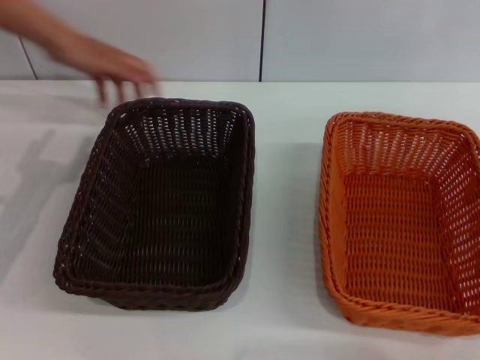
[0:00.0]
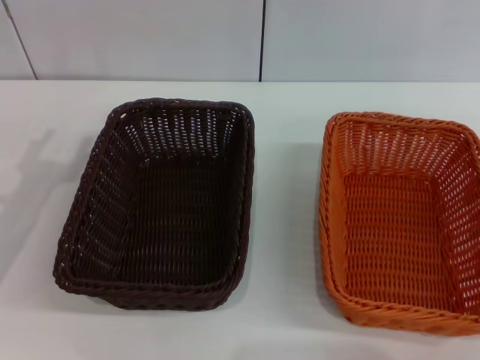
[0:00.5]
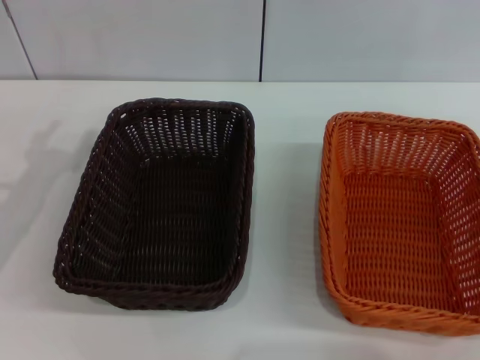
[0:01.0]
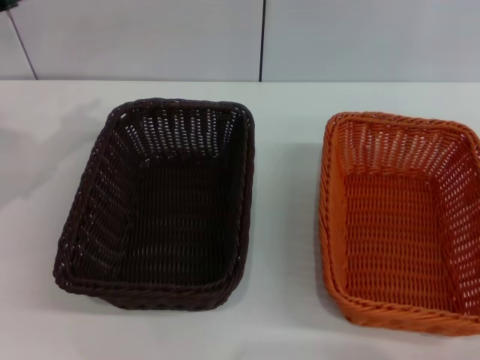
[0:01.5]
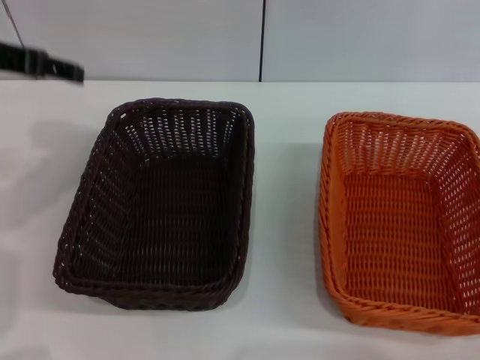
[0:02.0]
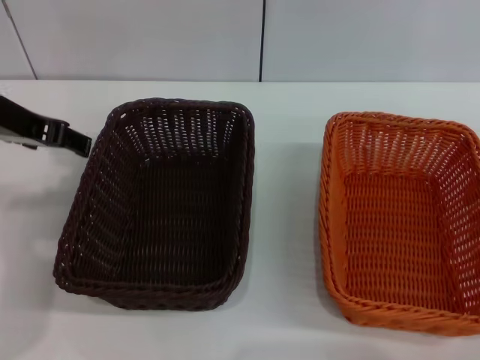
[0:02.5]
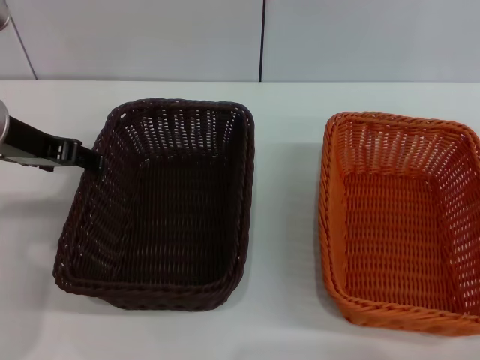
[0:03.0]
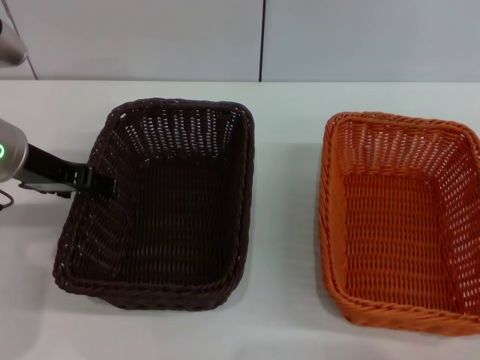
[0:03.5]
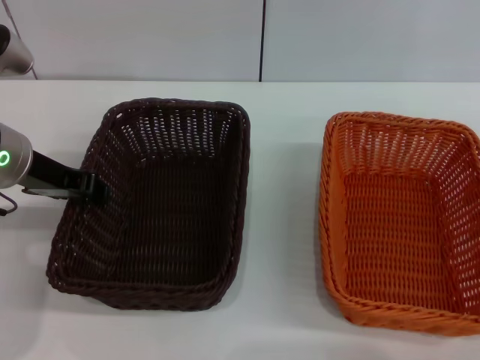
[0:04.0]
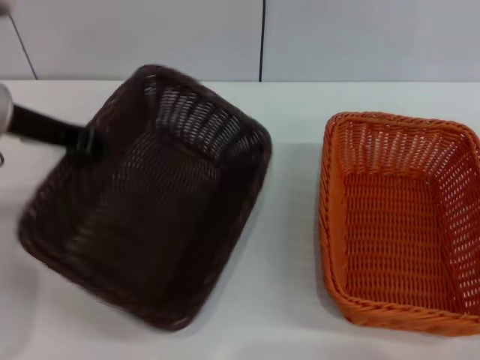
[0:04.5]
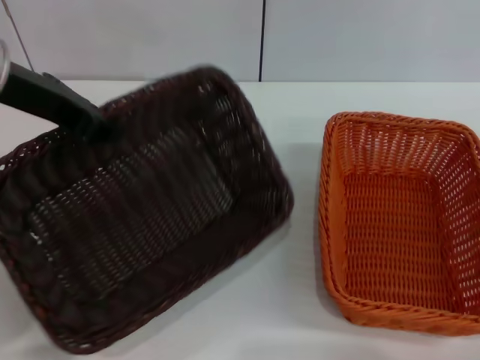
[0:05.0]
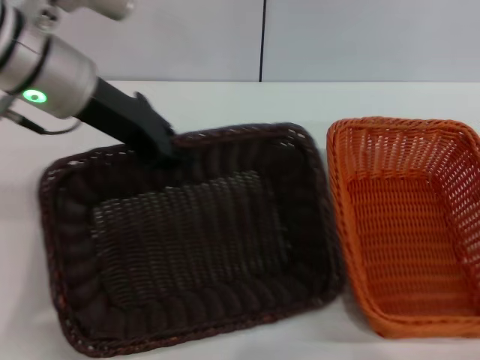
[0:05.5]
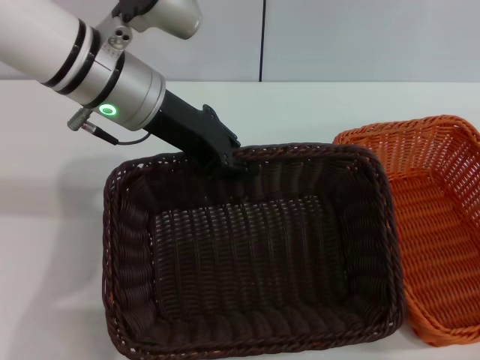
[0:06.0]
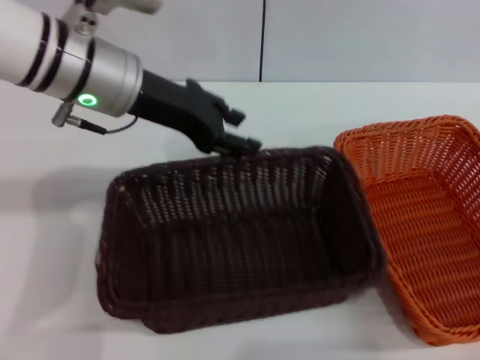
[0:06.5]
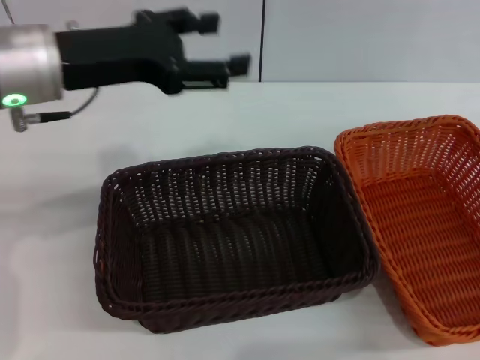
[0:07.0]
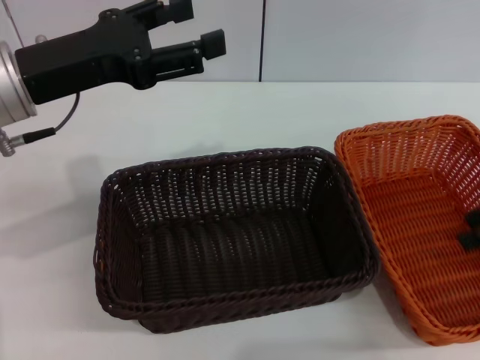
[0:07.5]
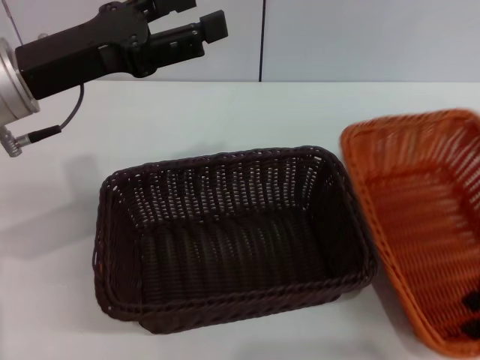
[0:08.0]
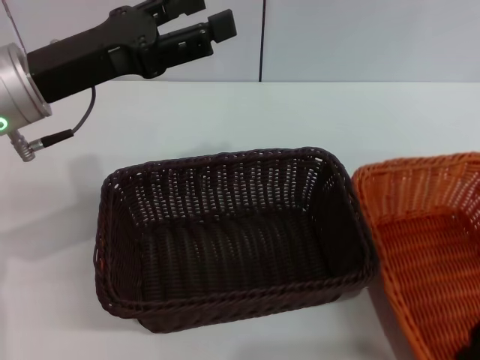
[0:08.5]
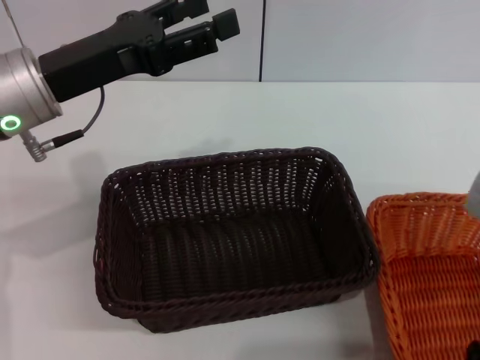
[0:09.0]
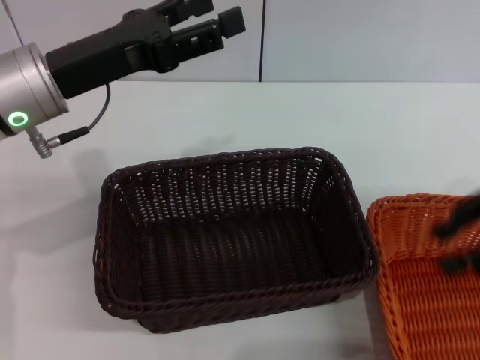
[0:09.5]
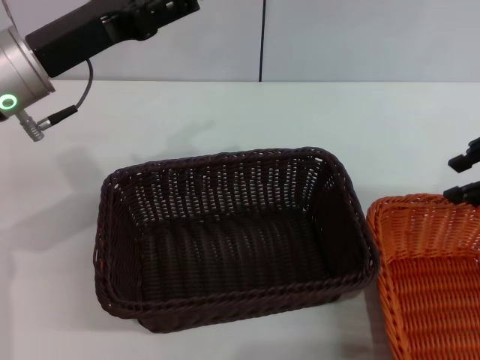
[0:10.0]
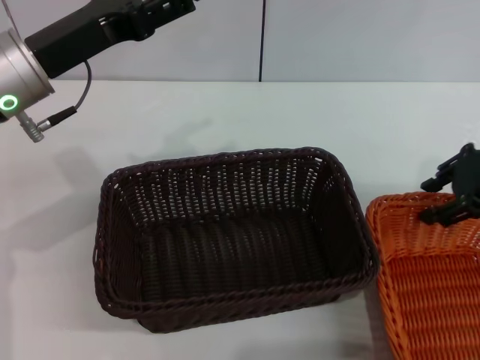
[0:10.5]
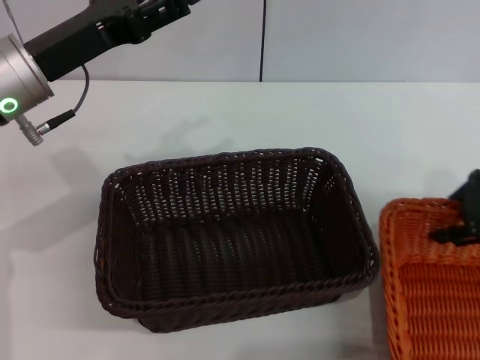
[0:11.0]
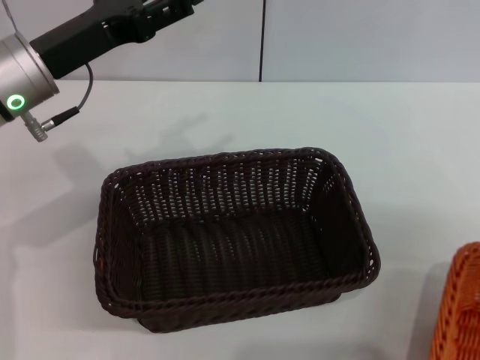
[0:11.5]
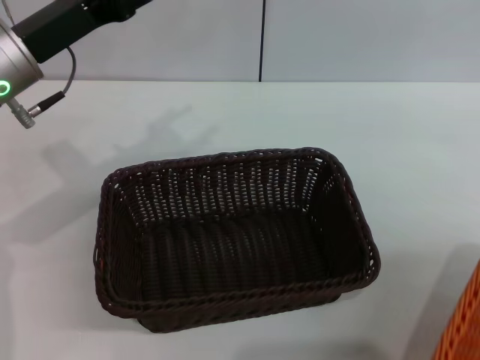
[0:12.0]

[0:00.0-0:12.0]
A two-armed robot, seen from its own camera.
Step, 0:00.0 to 0:04.0: Pick up the dark basket with the left gripper.
Step, 0:04.5 to 0:06.0: Place the dark basket in the center of view with the left gripper.
Step, 0:07.0 to 0:11.0: Pick up the light basket with the right gripper.
0:00.0 to 0:02.0: The left gripper travels upward and forward by about 20 cm.
0:02.0 to 0:04.0: The left gripper heads downward and to the right, covering approximately 10 cm, and closes up.
0:04.0 to 0:06.0: The left gripper travels to the right by roughly 10 cm, and closes.
0:06.0 to 0:08.0: The left gripper goes approximately 10 cm to the left and backward, and opens. The right gripper moves to the left and upward, some 10 cm.
0:08.0 to 0:10.0: The right gripper moves upward, some 5 cm.
0:10.0 to 0:12.0: The right gripper goes approximately 15 cm to the right and backward, and closes.

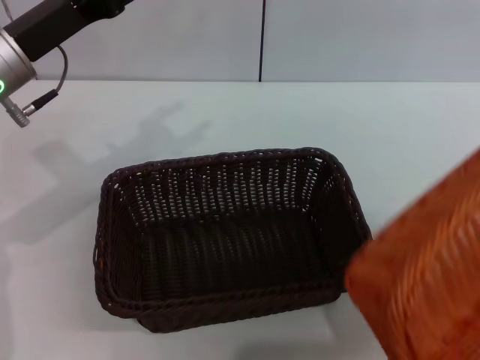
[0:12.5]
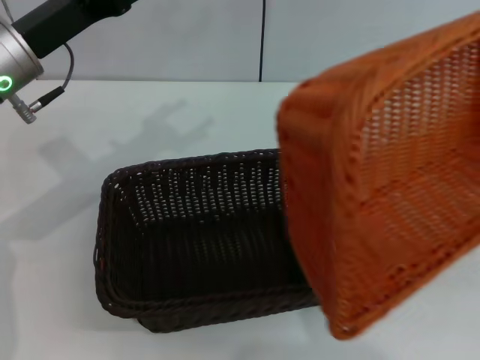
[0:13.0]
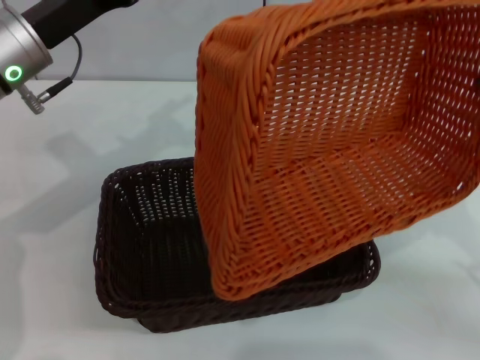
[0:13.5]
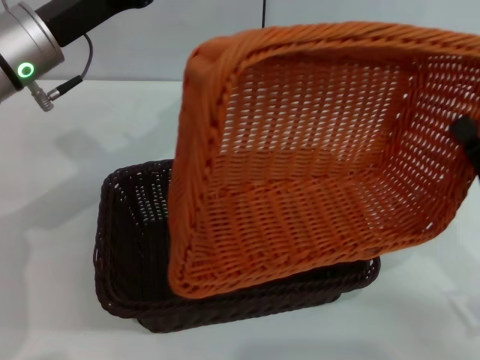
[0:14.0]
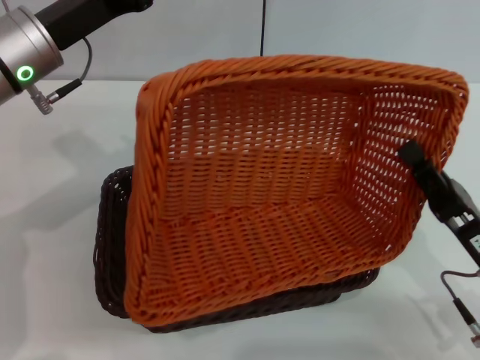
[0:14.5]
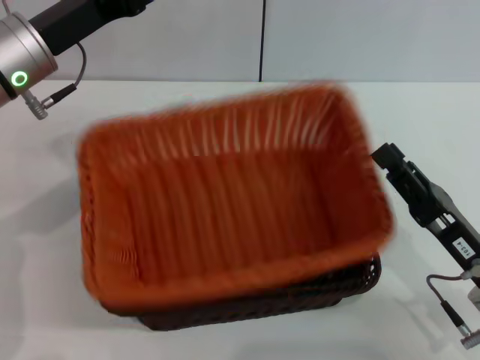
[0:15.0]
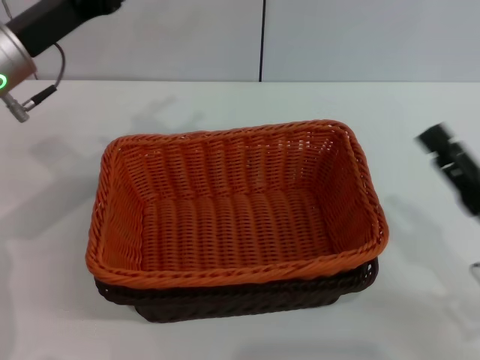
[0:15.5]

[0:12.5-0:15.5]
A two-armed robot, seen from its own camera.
Step, 0:12.5 to 0:14.5: Place the light basket on the dark basket with the right gripper.
0:12.5 to 0:14.0: The right gripper heads to the left and downward, covering approximately 25 cm.
0:14.0 to 0:15.5: The right gripper opens up.
